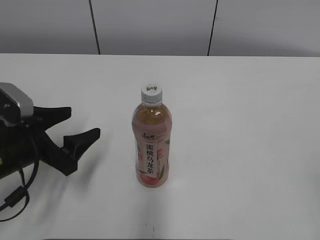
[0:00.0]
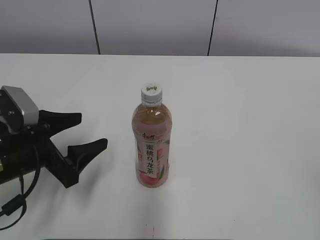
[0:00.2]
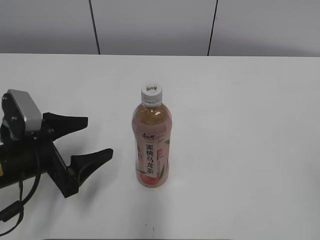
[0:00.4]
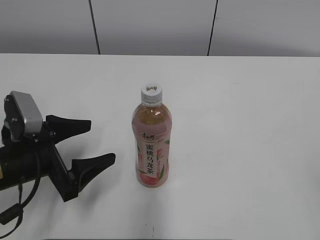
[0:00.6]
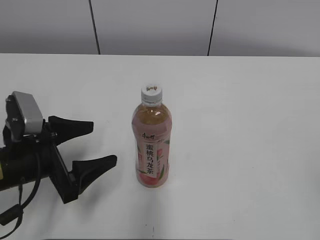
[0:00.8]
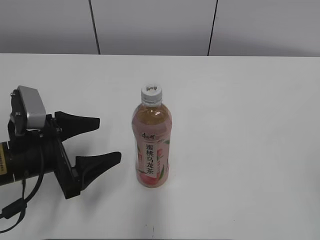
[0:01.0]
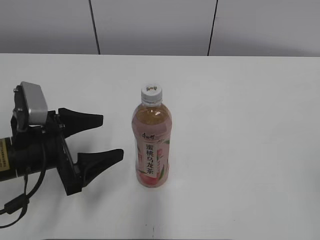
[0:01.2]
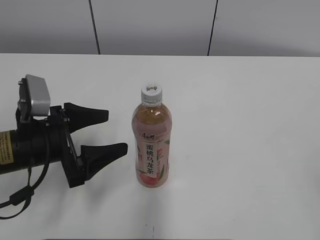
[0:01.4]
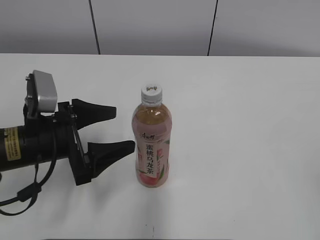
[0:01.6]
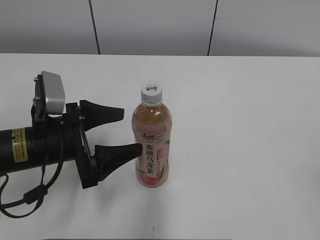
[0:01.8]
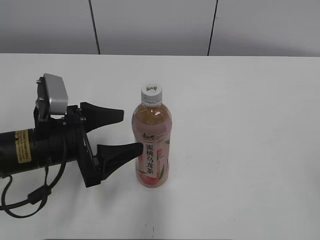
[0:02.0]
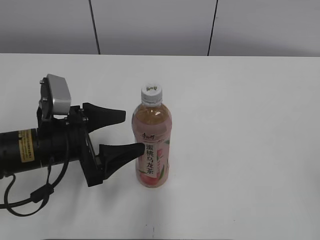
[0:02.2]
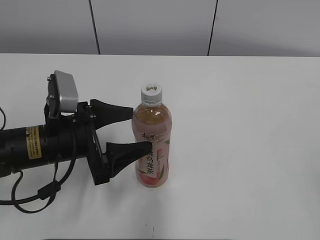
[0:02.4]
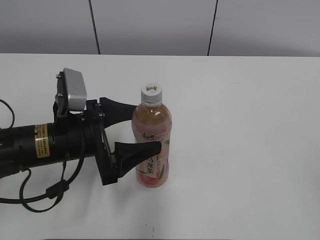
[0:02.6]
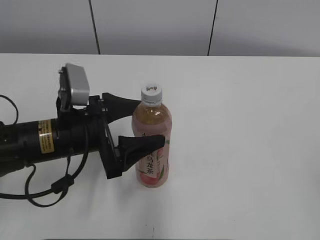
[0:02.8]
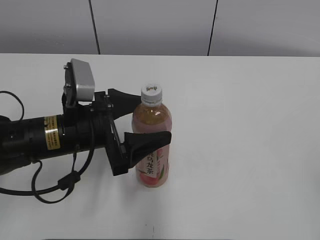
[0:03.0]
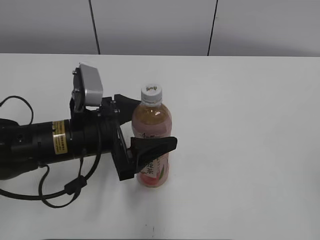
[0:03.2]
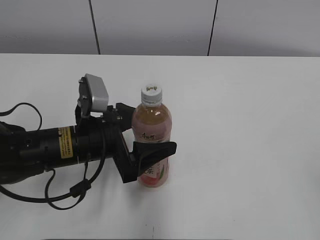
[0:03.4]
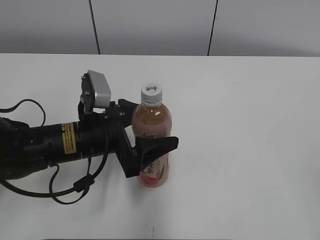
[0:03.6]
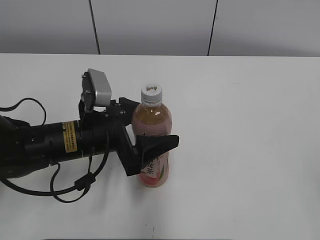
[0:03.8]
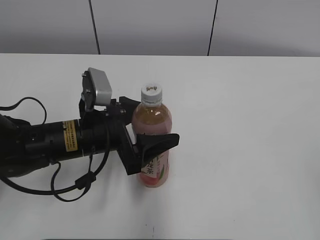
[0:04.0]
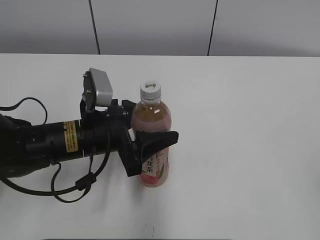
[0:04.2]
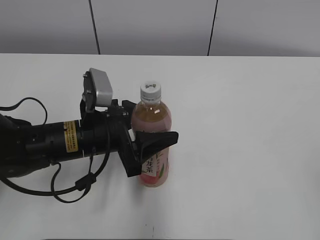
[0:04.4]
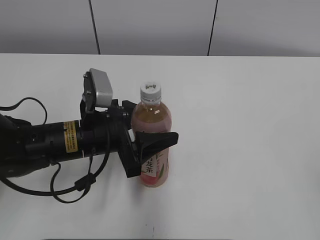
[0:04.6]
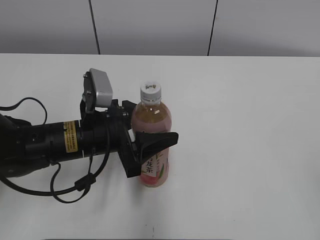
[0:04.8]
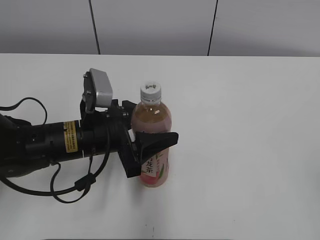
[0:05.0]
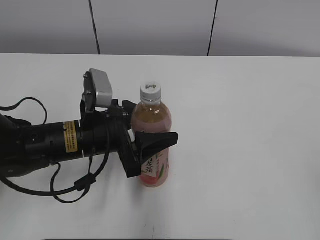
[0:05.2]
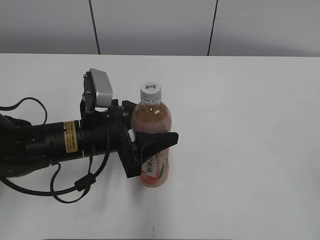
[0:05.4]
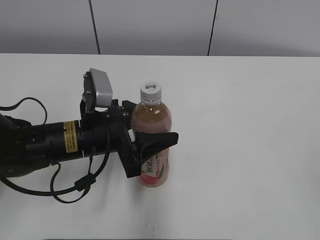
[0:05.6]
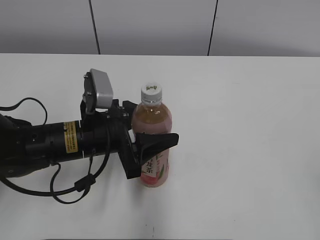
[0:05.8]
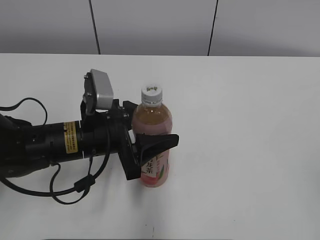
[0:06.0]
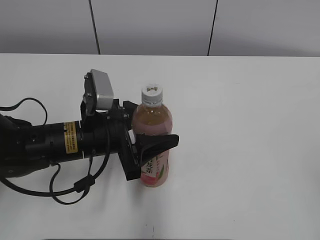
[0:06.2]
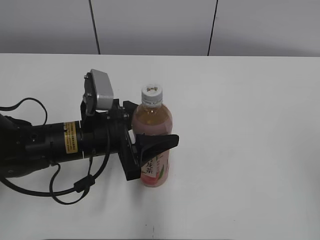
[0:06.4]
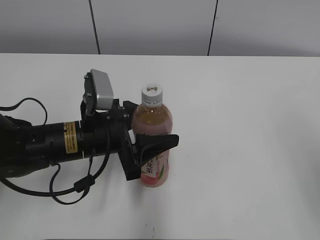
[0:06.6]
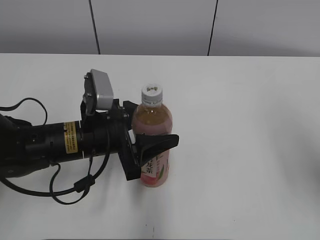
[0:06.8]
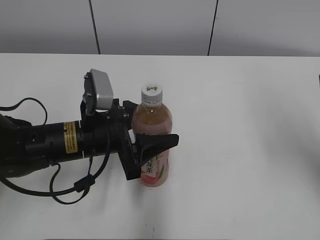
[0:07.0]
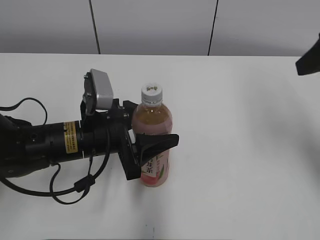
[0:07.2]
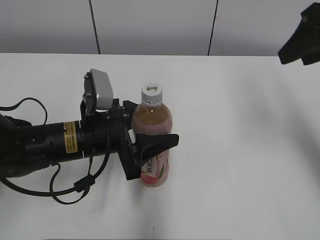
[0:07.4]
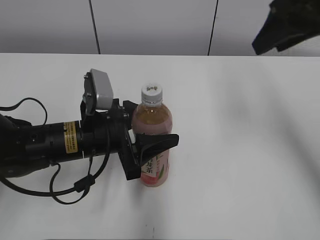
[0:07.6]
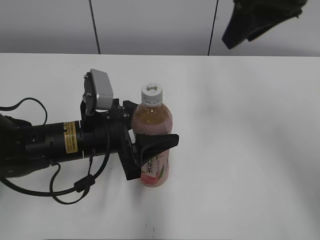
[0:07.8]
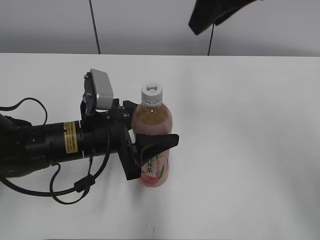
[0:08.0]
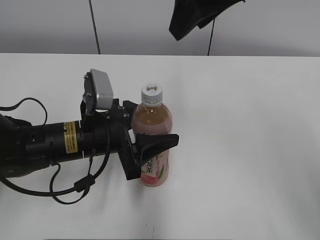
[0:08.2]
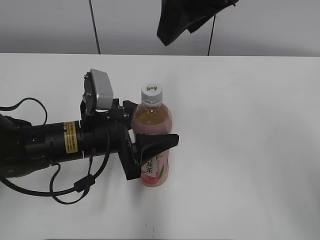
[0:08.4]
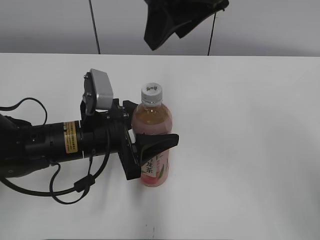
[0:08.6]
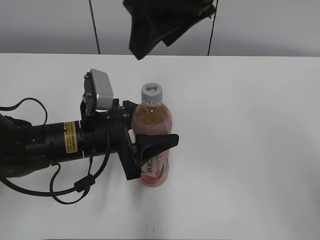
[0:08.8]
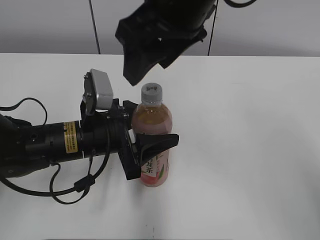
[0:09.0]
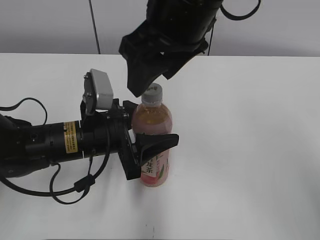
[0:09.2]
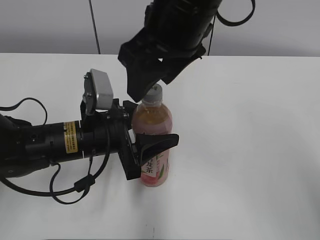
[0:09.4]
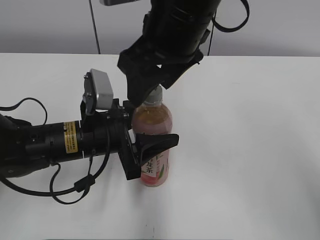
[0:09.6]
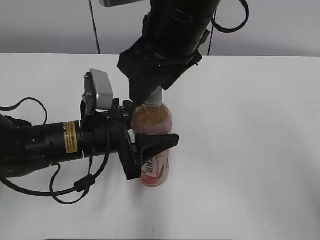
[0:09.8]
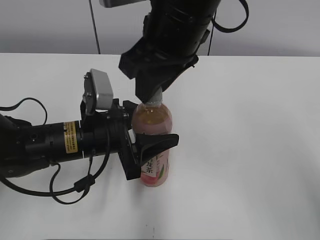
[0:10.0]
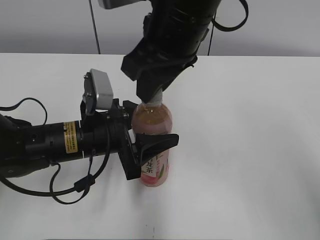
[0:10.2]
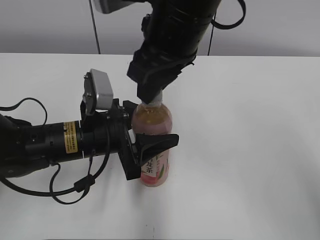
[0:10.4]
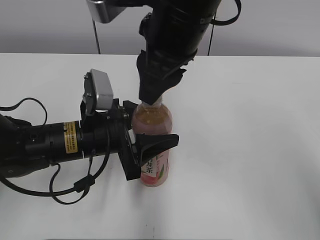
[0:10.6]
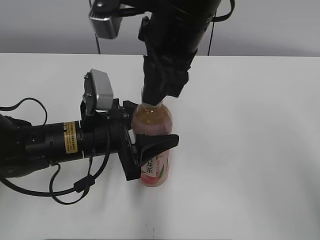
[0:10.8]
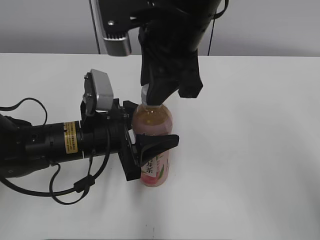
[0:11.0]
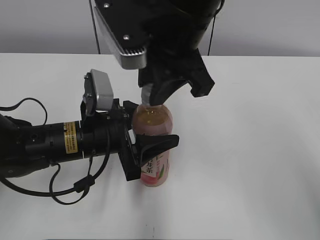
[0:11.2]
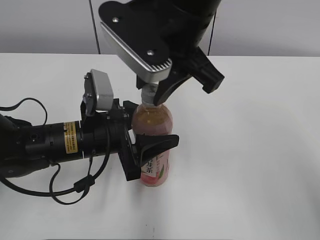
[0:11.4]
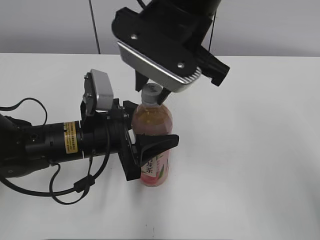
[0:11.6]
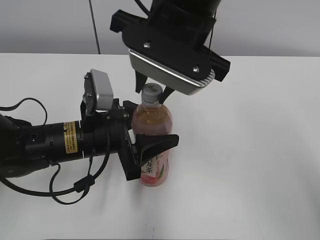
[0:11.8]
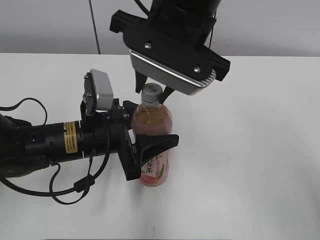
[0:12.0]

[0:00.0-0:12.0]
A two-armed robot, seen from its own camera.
Step, 0:00.0 to 0:06.4: Grab the Peach Oolong Tea with the left hand.
0:01.6 to 0:03.0: The left gripper goes roughly 5 cm to the right.
0:03.0 to 0:04.4: The left gripper closes its fingers.
0:04.4 to 0:06.0: Both grippers stay about where they are.
0:06.0 to 0:07.6: The right gripper moves forward, some 30 cm.
0:07.6 to 0:09.0: The right gripper goes about 20 cm to the left, and opens its fingers.
0:09.0 to 0:10.4: The right gripper closes.

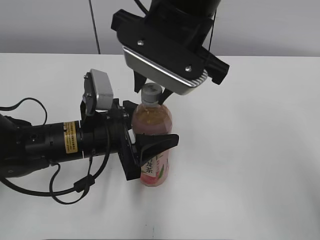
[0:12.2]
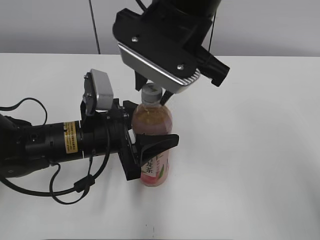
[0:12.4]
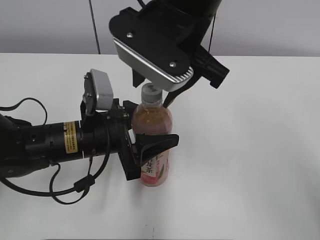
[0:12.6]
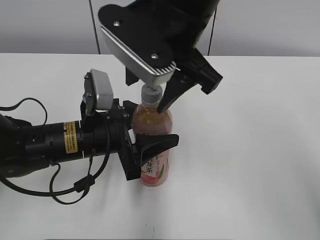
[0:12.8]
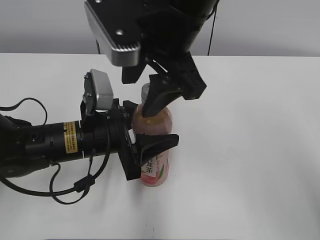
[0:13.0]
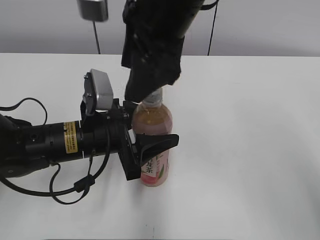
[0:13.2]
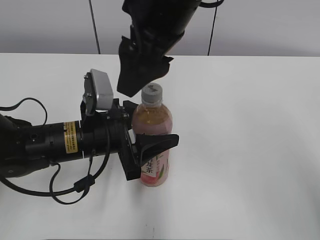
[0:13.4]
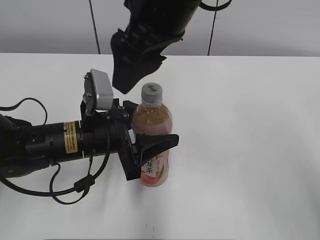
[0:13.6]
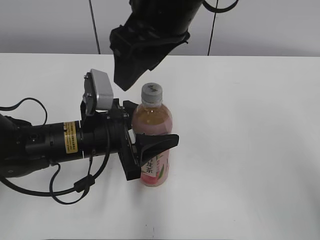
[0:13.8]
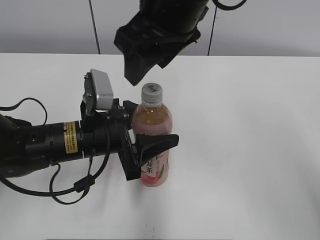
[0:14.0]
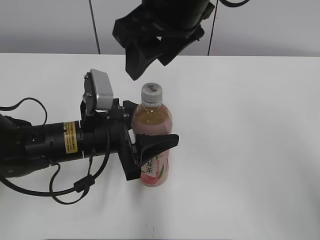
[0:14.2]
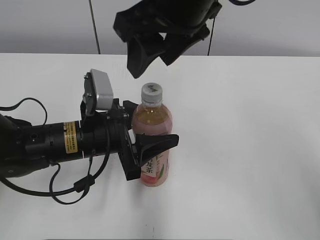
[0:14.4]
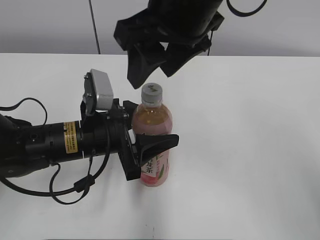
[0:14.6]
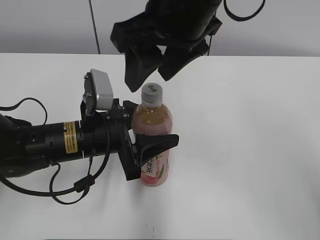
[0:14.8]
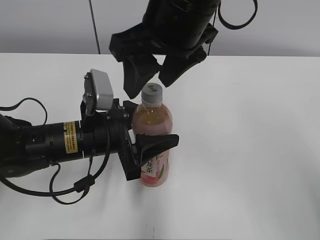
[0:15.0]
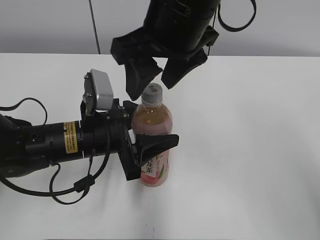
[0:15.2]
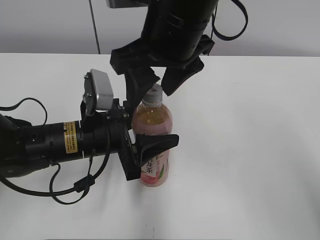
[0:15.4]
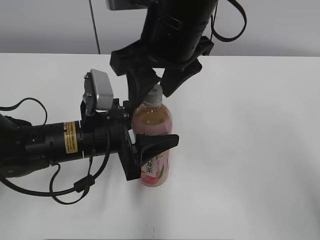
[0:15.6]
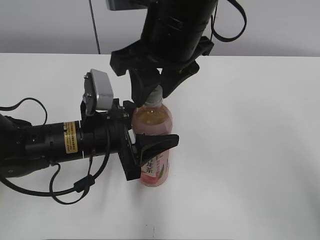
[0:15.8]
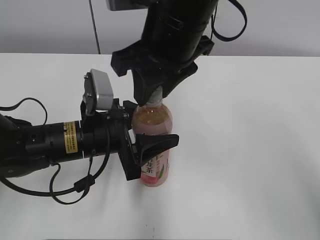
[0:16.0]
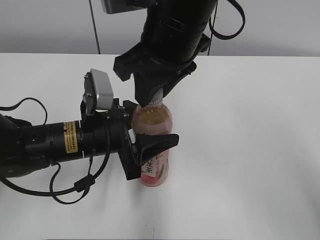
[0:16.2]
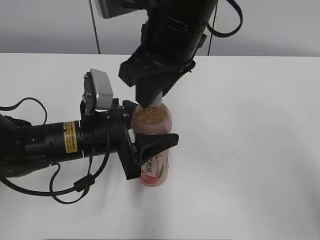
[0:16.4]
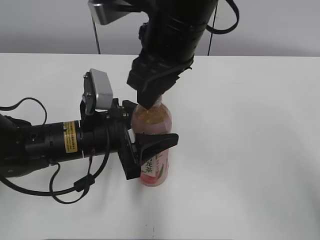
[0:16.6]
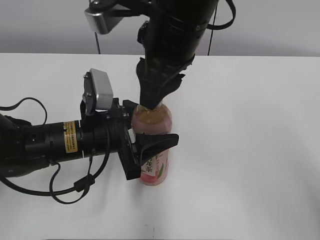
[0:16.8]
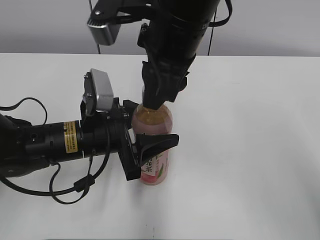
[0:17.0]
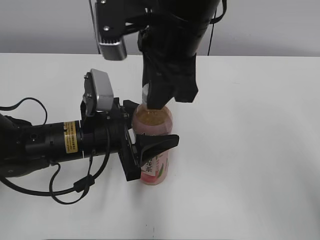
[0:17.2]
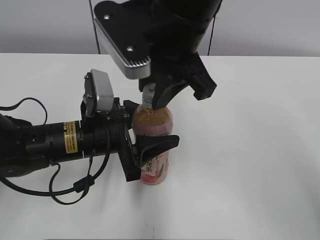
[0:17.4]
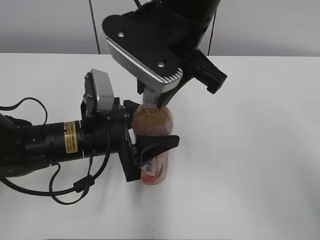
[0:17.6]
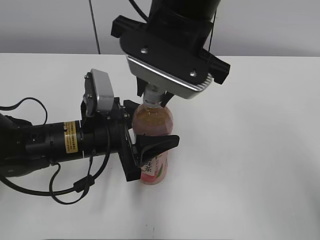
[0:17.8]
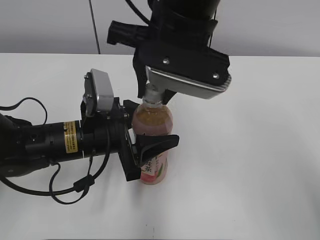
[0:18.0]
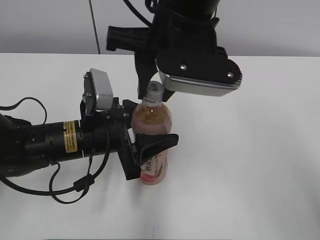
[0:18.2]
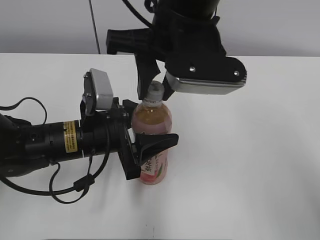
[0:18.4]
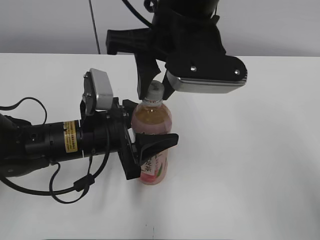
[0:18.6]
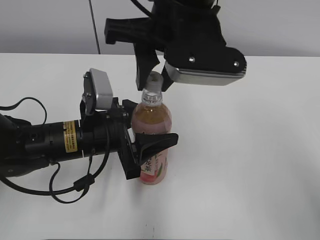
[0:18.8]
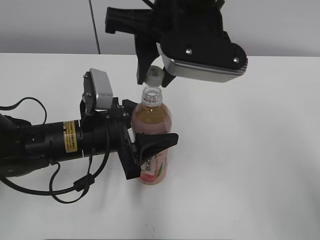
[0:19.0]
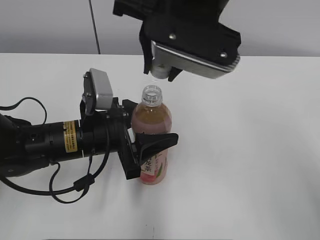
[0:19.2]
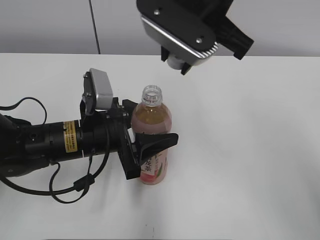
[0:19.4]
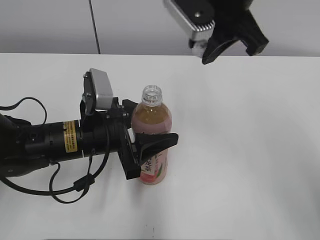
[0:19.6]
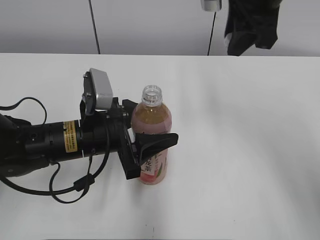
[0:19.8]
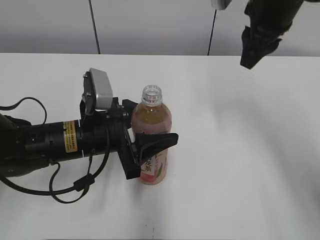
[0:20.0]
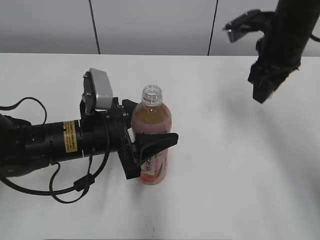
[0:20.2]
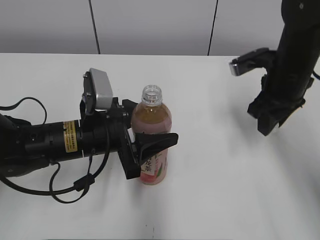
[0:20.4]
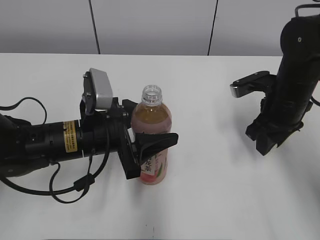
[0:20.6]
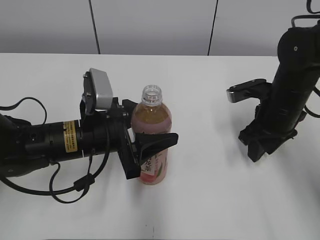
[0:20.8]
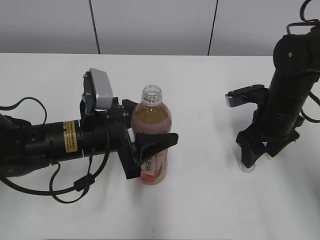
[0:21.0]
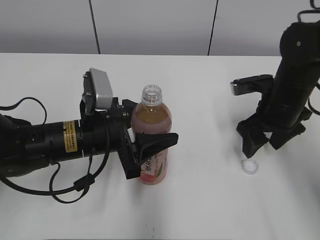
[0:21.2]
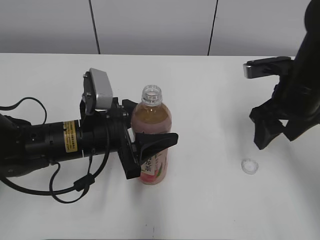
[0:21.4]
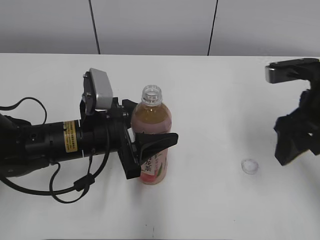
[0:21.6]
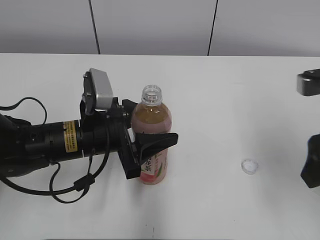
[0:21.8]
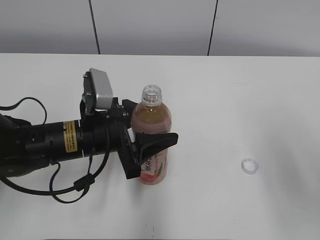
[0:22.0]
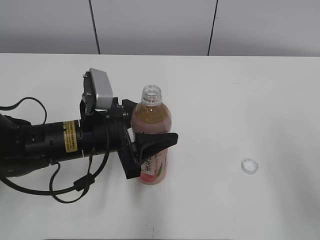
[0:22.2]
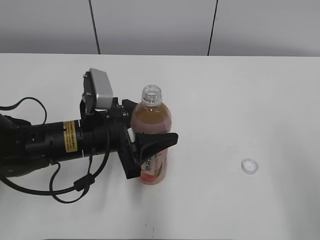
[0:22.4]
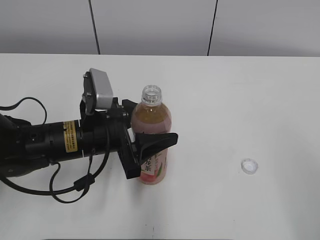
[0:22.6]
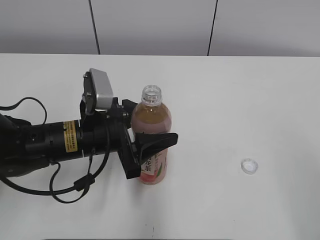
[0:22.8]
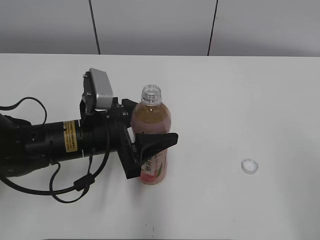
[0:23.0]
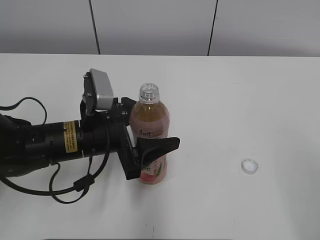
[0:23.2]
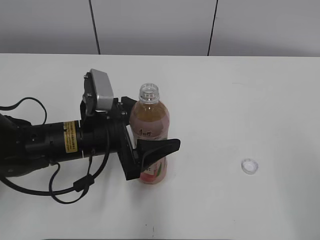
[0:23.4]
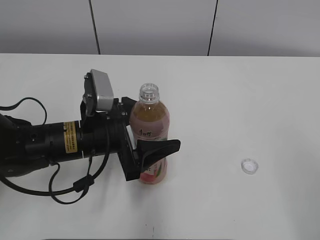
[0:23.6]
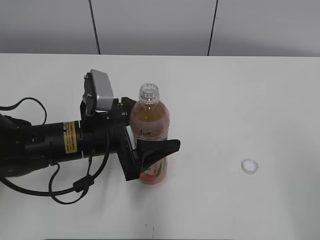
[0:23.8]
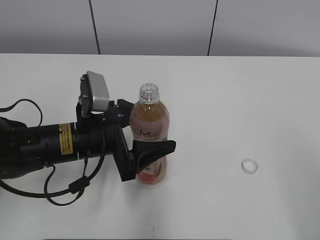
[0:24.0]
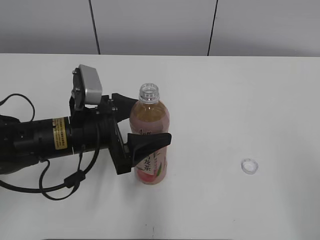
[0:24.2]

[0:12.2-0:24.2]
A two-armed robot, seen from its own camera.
Step, 0:19.4 to 0:21.4: Place the bottle cap on the right.
0:12.2 to 0:13.8: The right gripper opens.
0:15.2 to 0:16.6: The right gripper closes.
0:18.2 to 0:19.8: The right gripper moves to the right and forward, approximately 15 cm.
0:19.8 to 0:21.2: The right gripper is displaced downward by some 20 cm, and opens.
0:21.2 to 0:22.6: The right gripper moves backward and upward, some 30 cm.
0:22.6 to 0:24.2: The left gripper opens its fingers.
